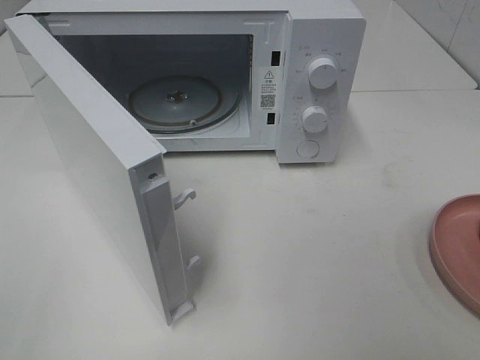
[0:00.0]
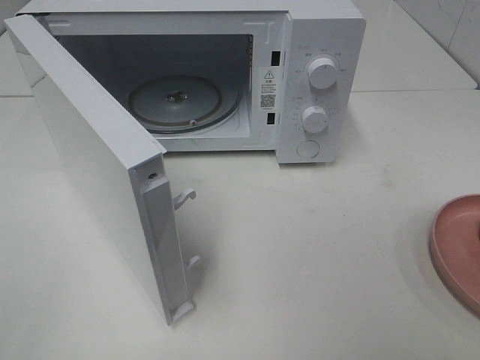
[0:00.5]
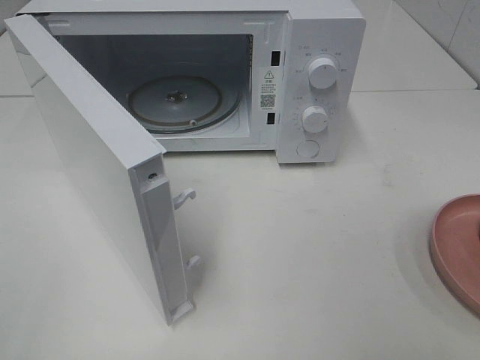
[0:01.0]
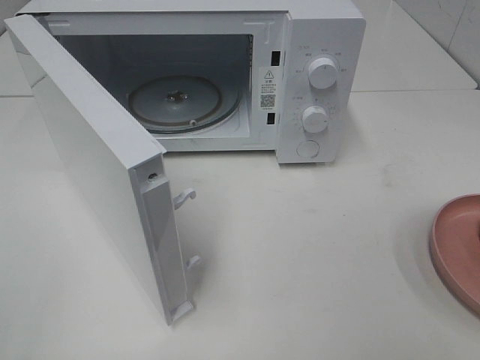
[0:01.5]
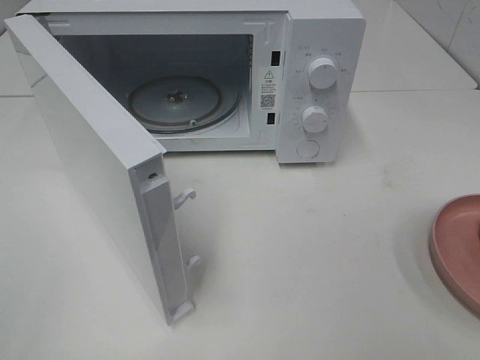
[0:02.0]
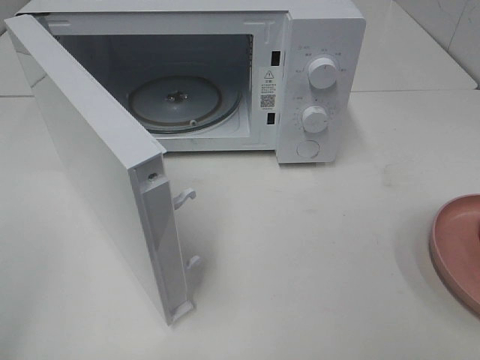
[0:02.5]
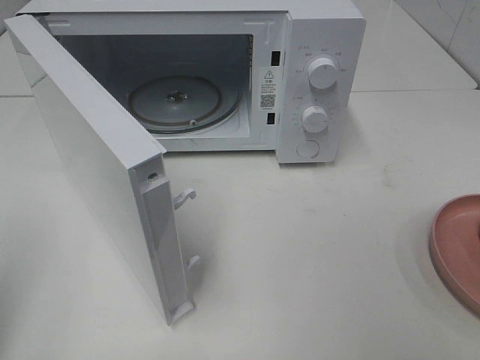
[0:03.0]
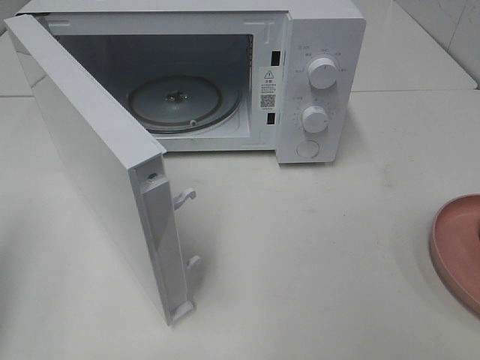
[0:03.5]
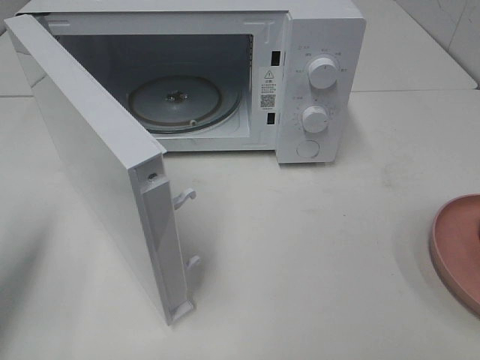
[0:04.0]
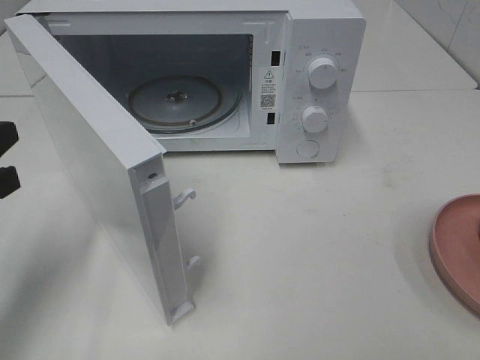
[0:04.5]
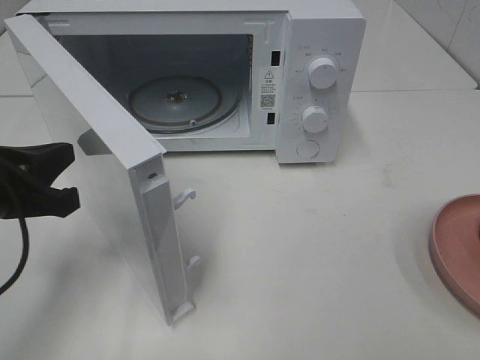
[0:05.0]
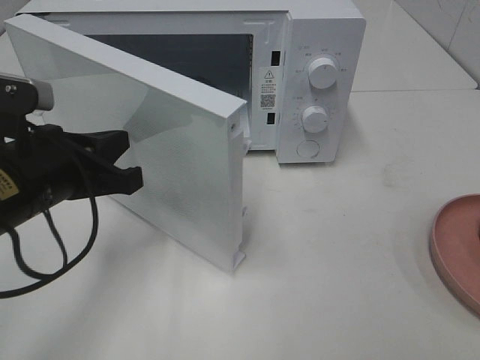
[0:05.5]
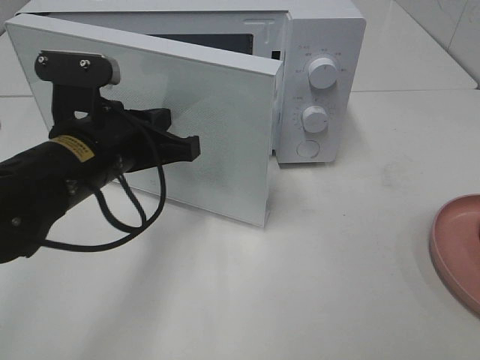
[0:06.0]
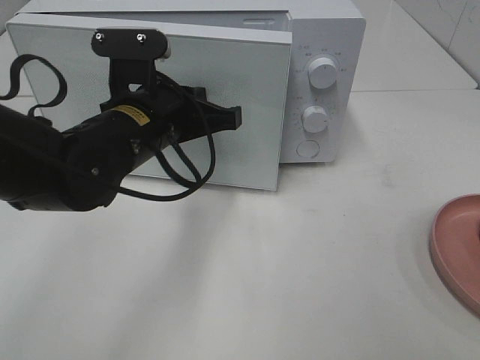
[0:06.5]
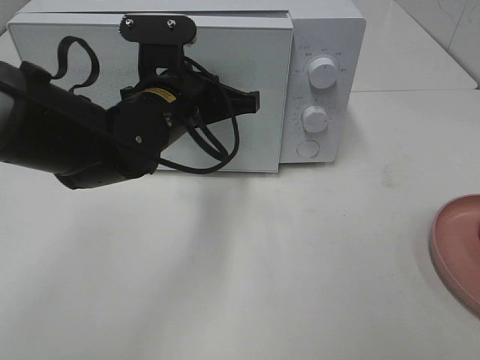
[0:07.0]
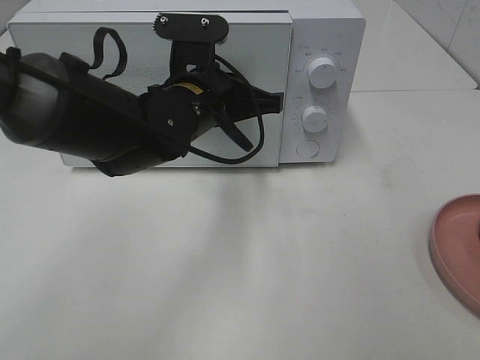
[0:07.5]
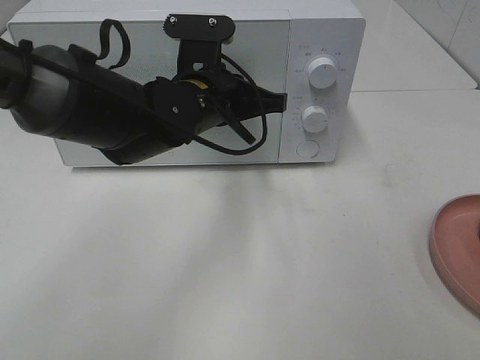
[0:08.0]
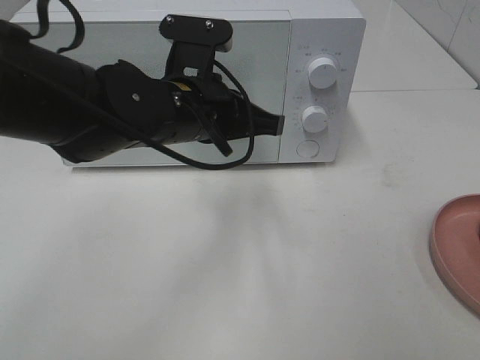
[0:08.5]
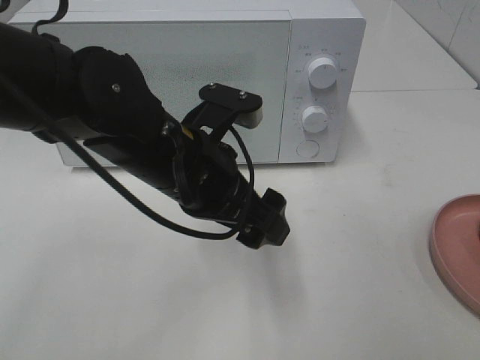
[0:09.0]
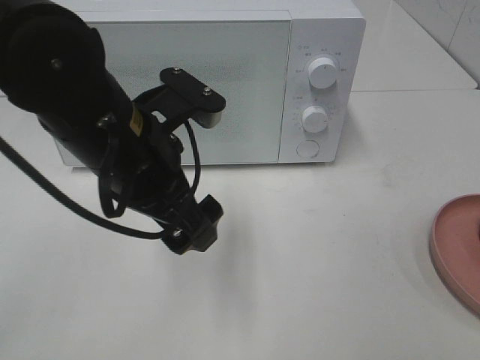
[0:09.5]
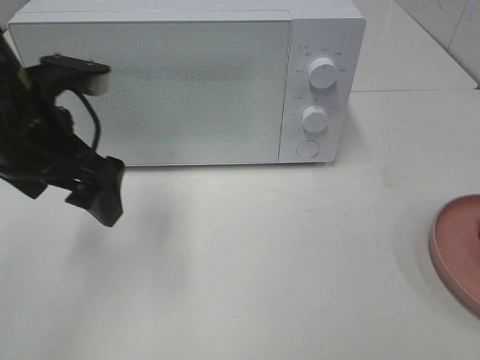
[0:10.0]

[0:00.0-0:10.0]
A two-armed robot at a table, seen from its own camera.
Task of the whole recording: Heat the burger.
Step, 0:00.0 to 0:08.0: Left hand: close the microwave door.
0:00.0 to 0:02.0: Neither gripper changes place.
0:02.0 to 0:04.0: The left gripper is displaced forward and downward by about 20 cm, and closes its fingers.
0:04.0 to 0:06.0: The left gripper moves to the right and forward, roughly 20 cm.
0:06.0 to 0:08.0: The left gripper goes about 15 cm to the right and forward.
0:08.0 to 0:10.0: The left gripper is displaced to the left, backward and upward by approximately 20 cm, and opens up.

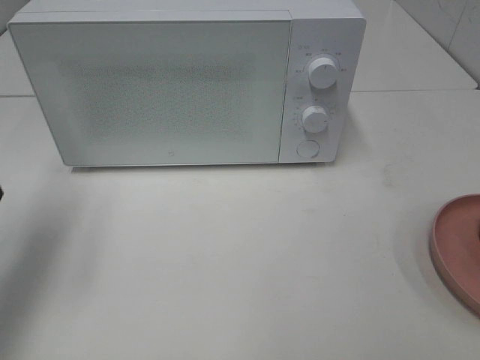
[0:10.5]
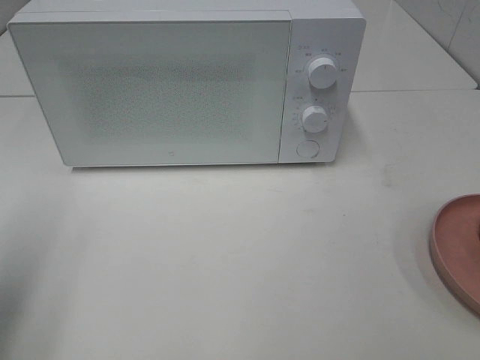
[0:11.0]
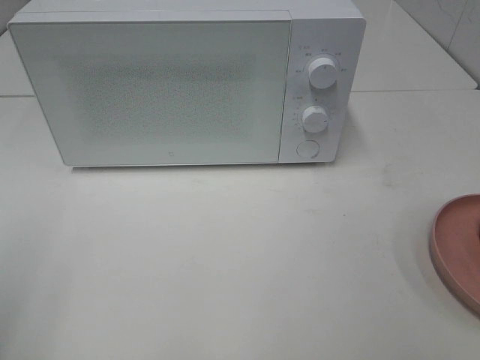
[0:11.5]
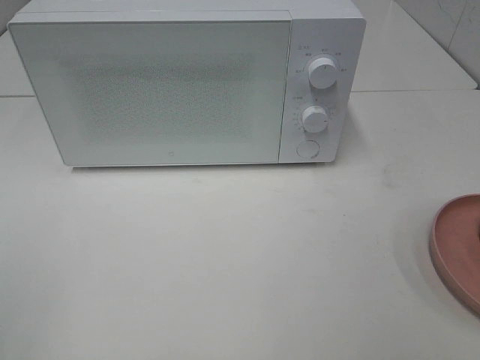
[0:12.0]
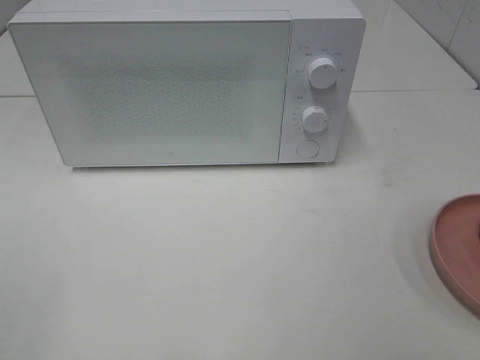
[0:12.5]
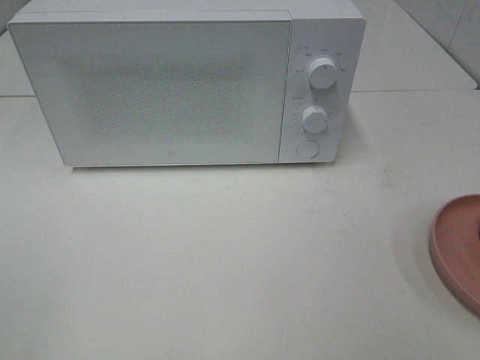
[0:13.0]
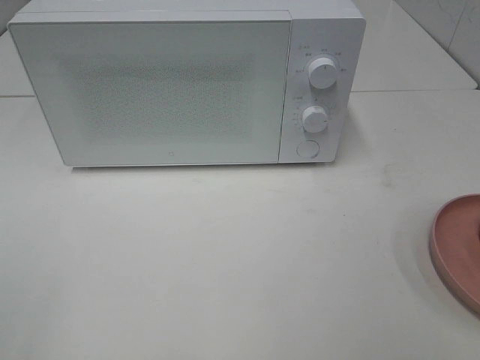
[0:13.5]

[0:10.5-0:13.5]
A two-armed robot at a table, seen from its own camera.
Task of the whole recording: Heat the burger.
0:10.5 to 0:12.0: The left gripper heads backward, covering some 25 cm.

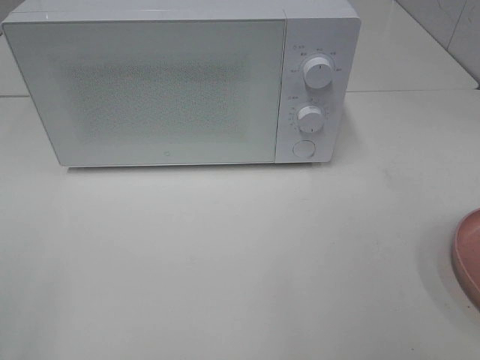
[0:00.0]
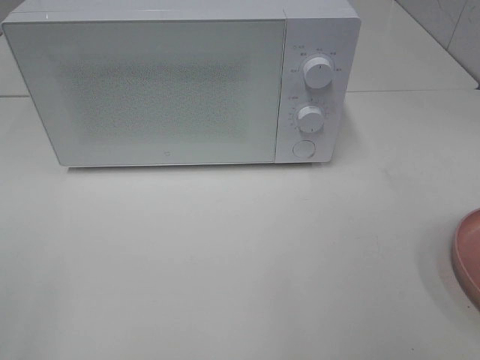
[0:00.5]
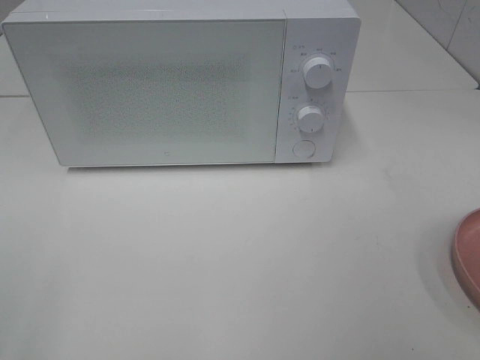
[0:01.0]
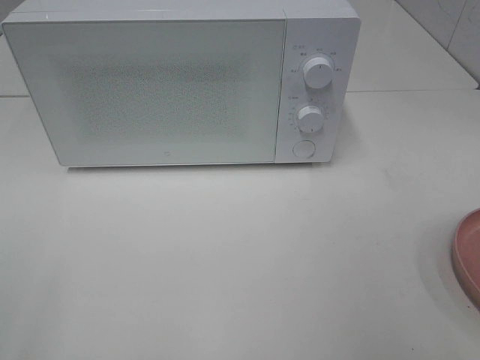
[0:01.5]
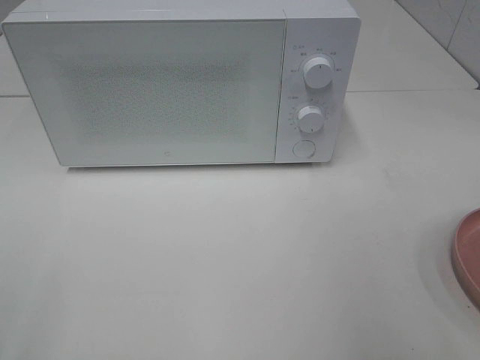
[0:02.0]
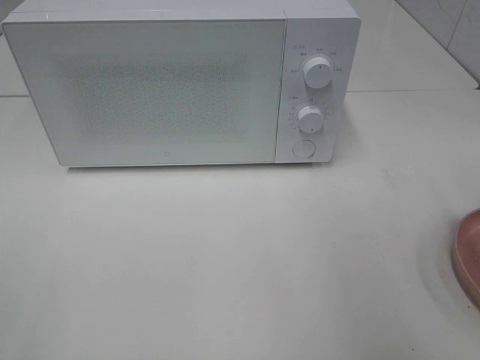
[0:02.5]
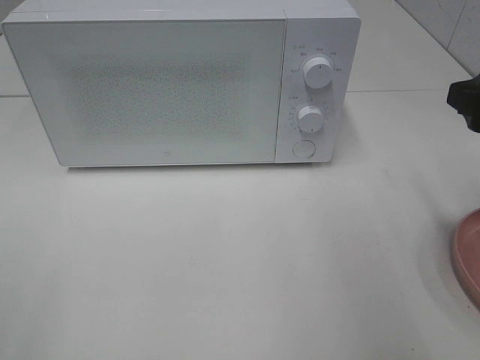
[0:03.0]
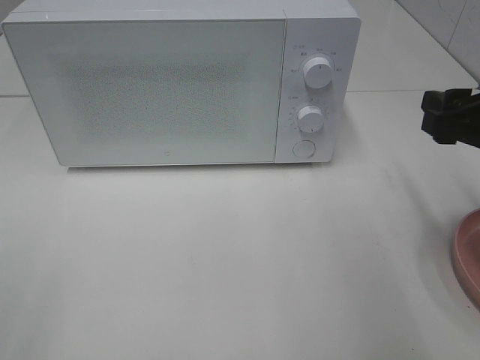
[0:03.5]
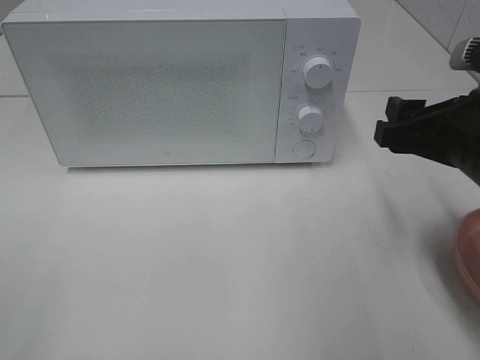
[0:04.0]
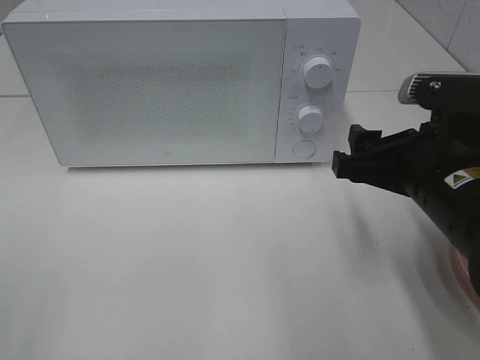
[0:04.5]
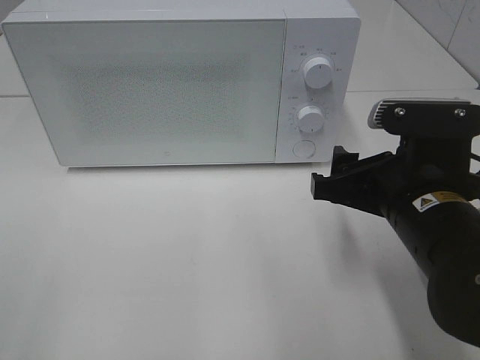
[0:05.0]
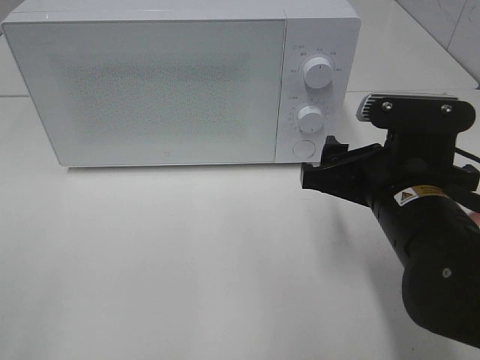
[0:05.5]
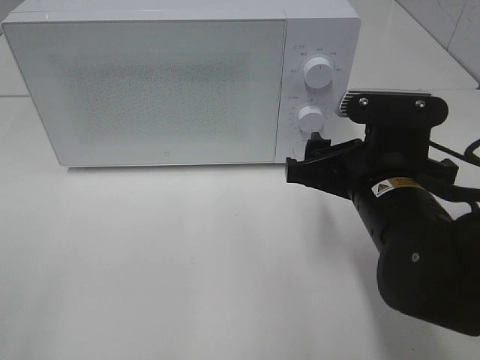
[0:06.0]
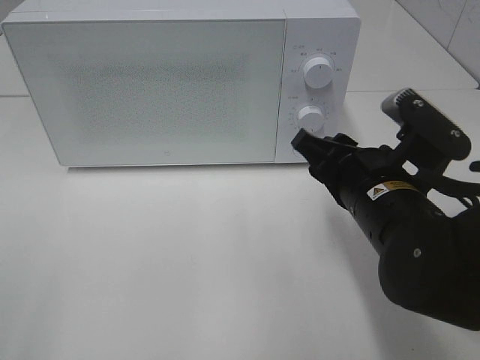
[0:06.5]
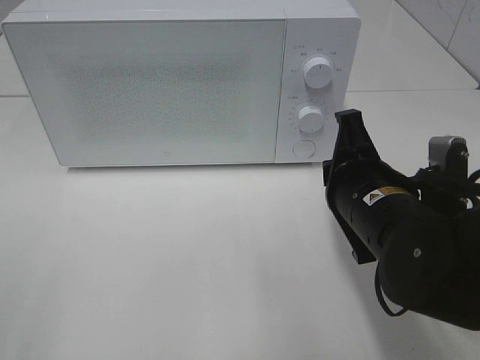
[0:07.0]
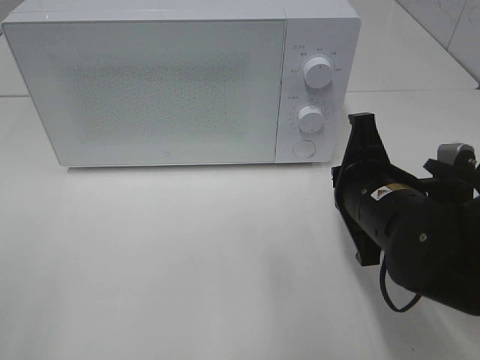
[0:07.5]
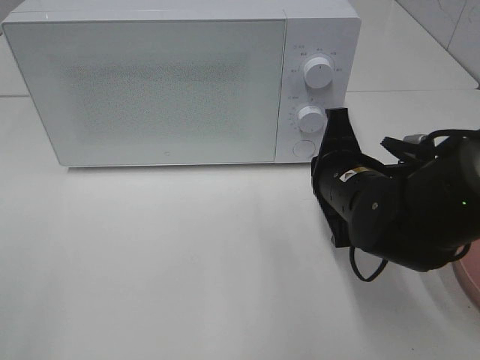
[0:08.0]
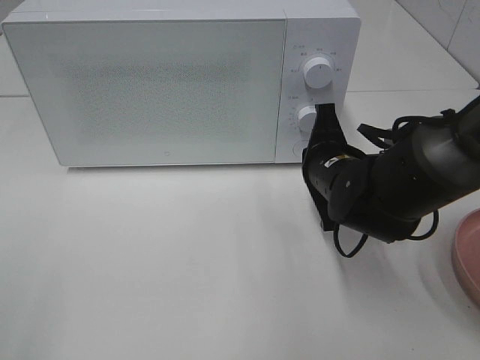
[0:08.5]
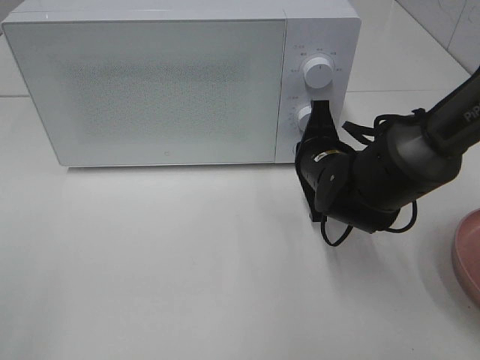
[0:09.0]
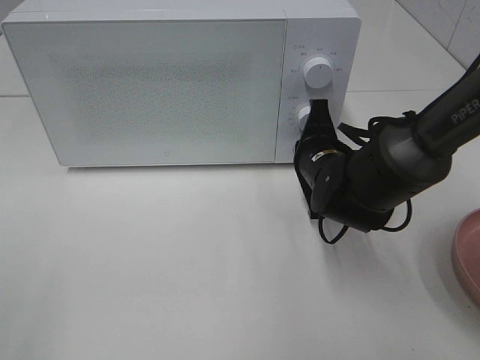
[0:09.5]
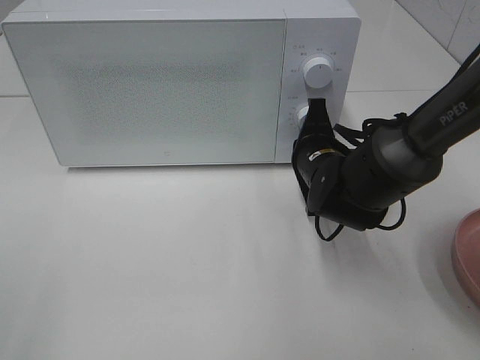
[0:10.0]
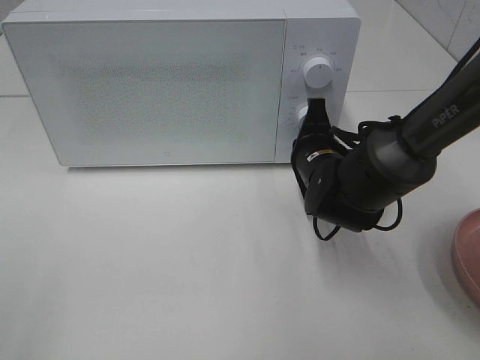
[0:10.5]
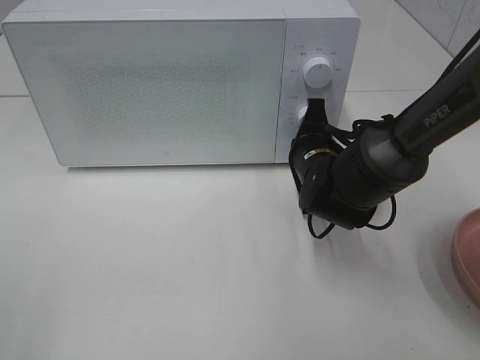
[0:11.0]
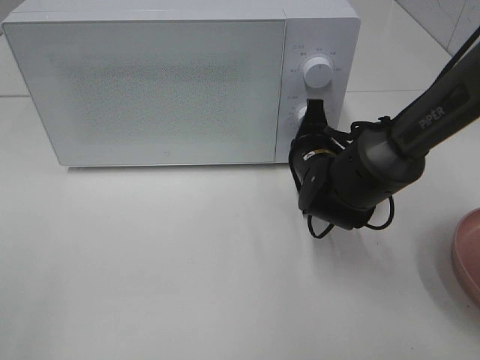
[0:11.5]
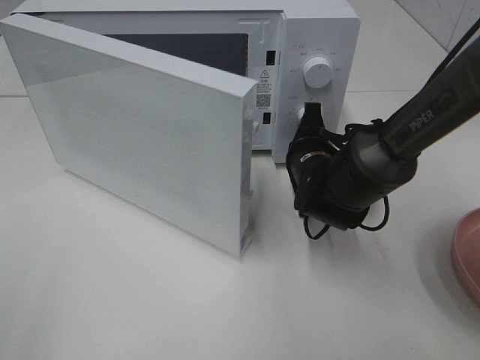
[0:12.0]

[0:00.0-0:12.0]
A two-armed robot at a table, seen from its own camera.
Task of the whole recording: Heat the burger.
0:02.0 to 0:04.0: The right gripper heads downward, forward and to the left, covering some 15 cm.
0:04.0 to 0:06.0: The right gripper shifts about 10 cm to the left.
0:06.0 to 0:08.0: The right gripper changes place by roughly 5 cm, and closes up.
0:08.0 to 0:10.0: The right gripper is displaced forward by some 5 cm.
